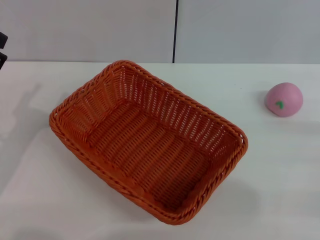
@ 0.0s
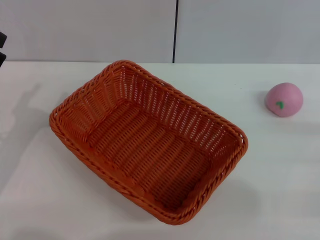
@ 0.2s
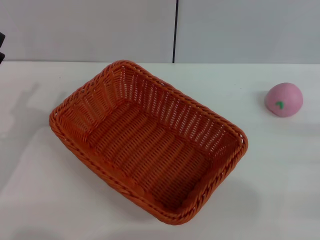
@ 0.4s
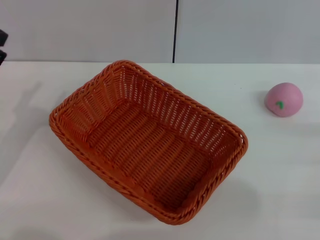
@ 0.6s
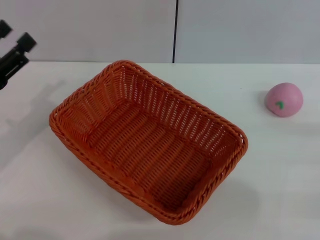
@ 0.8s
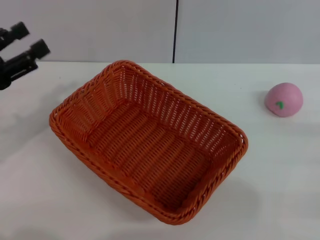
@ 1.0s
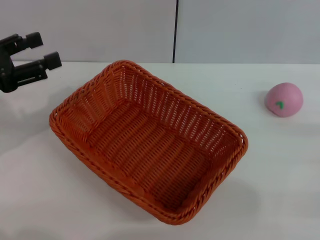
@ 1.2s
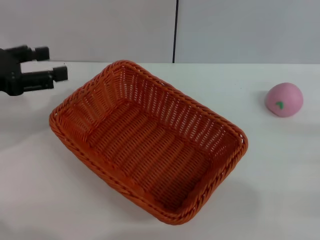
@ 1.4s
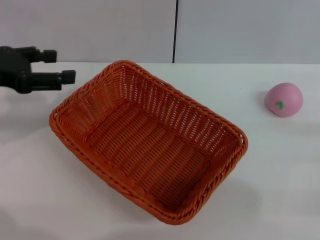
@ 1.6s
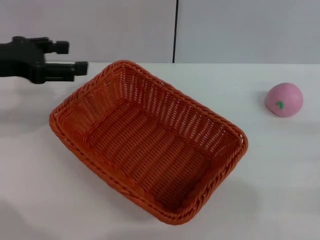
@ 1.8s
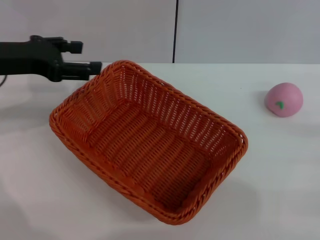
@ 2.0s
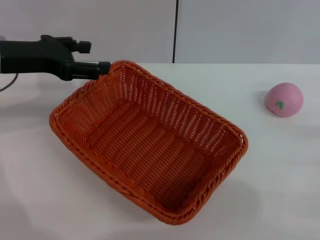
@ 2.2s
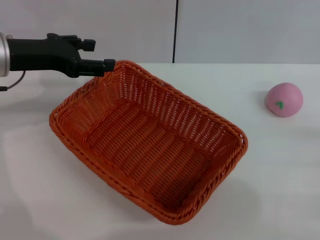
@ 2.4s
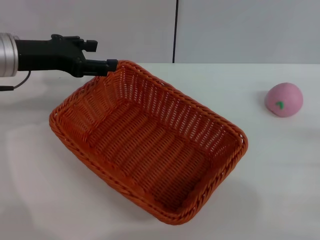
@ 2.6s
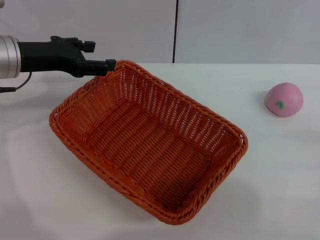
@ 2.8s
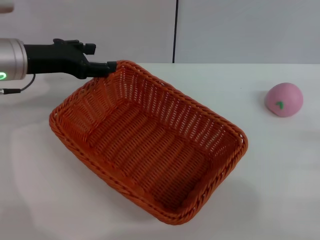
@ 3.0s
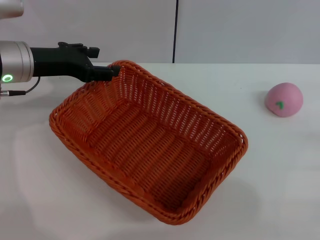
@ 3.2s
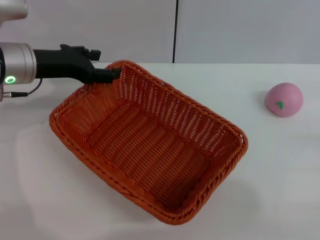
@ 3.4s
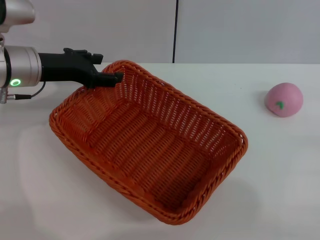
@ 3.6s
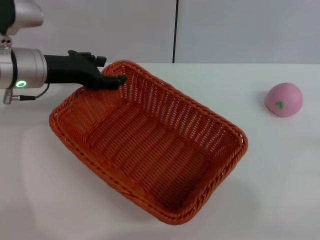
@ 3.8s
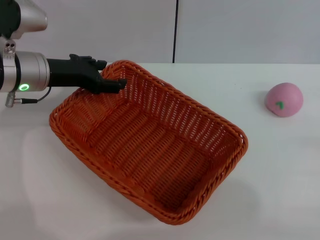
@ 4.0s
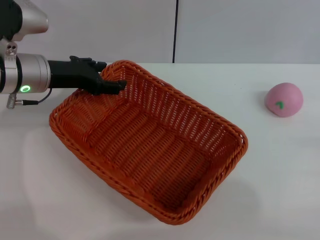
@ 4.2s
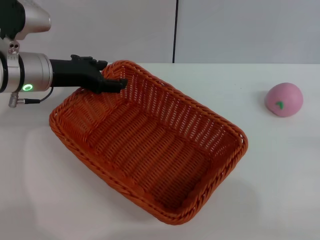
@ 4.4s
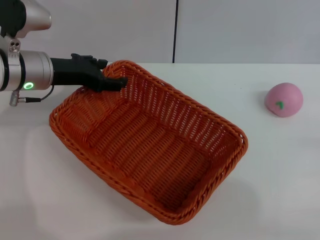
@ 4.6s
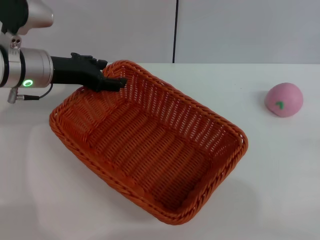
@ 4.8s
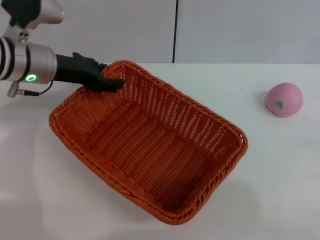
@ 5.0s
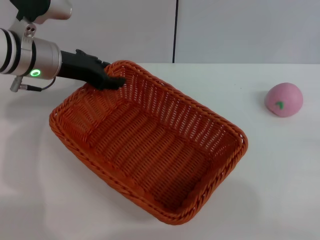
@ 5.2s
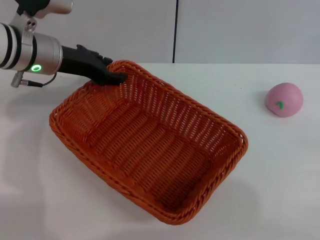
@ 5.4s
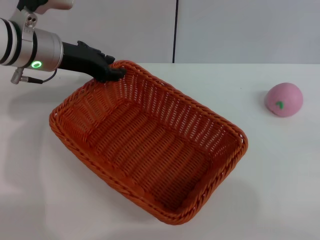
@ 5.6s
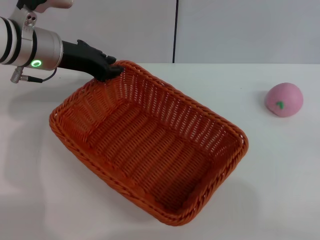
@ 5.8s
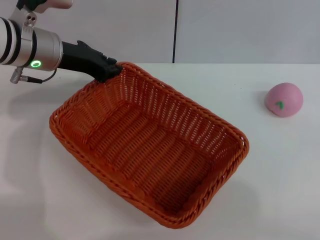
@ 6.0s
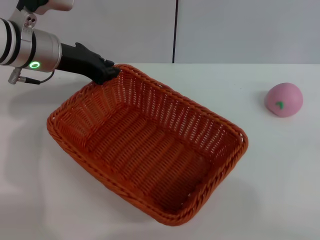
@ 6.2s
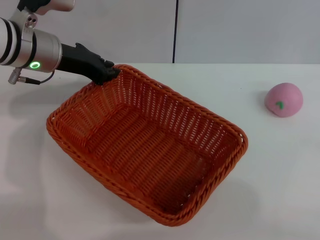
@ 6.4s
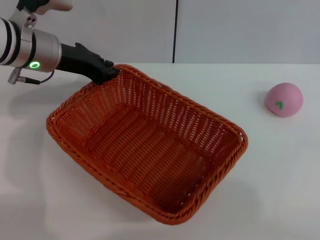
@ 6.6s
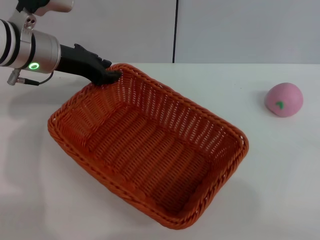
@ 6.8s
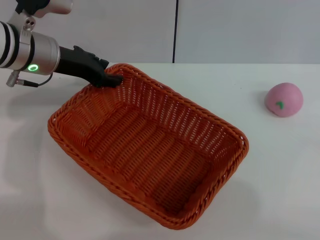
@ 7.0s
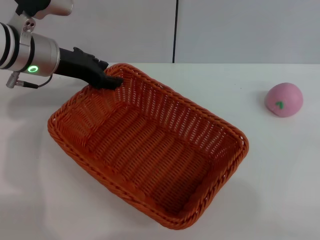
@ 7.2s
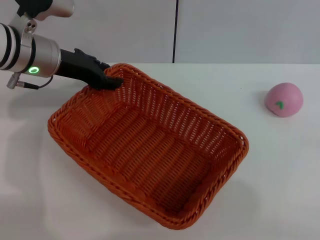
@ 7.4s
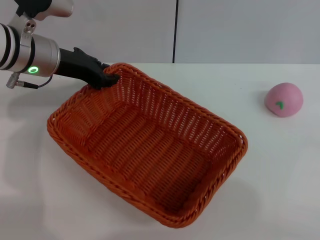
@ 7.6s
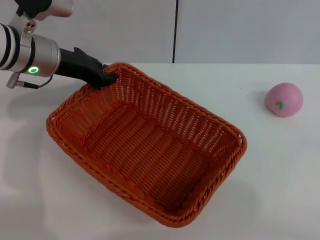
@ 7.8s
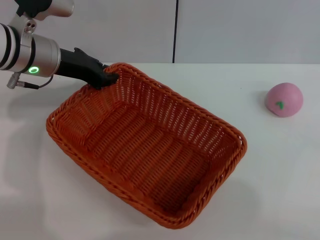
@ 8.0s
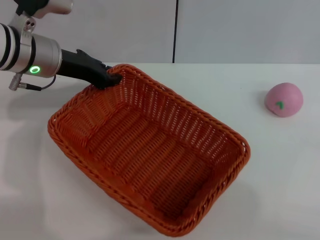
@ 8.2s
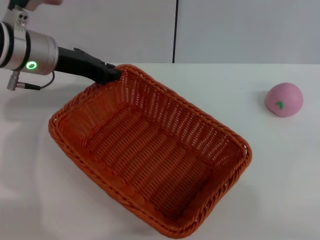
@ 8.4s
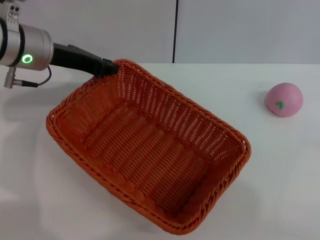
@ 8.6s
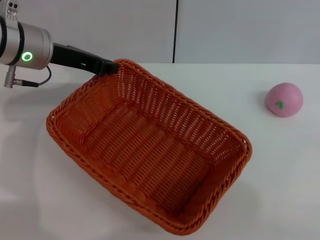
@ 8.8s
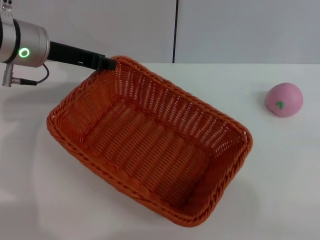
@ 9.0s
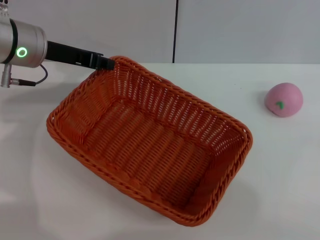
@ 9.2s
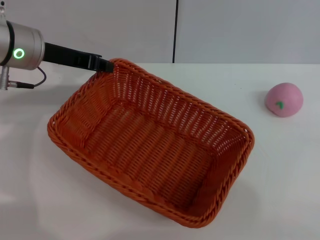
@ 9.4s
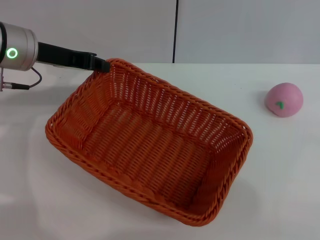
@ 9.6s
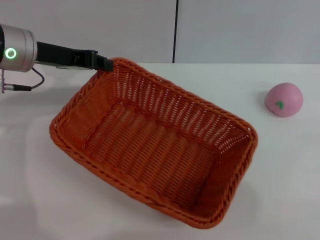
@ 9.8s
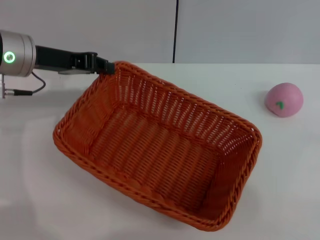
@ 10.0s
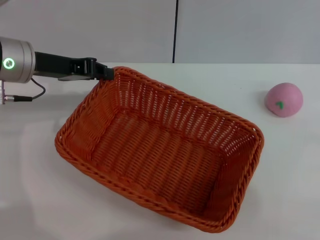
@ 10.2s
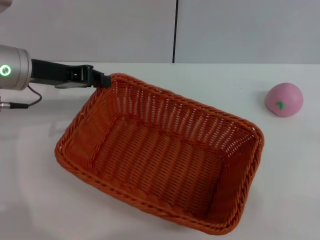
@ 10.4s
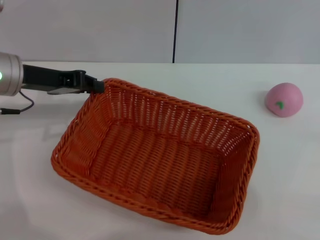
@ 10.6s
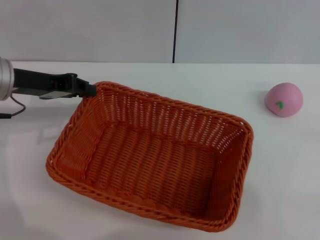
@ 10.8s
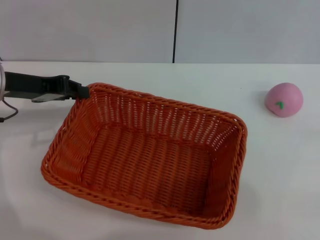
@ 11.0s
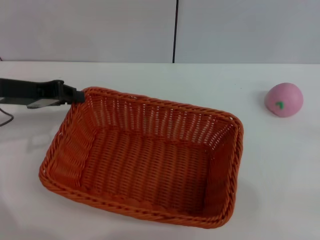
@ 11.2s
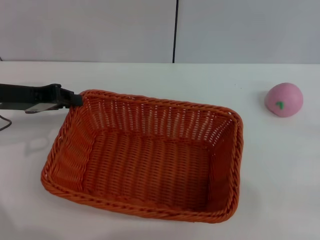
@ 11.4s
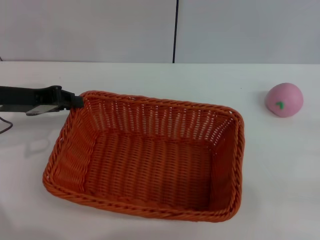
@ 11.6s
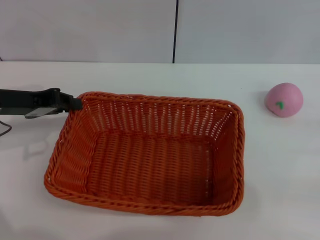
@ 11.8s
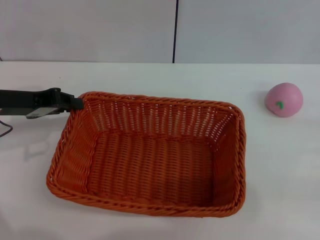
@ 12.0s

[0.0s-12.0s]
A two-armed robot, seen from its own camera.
Step, 0.0s to 8.8s: Pick up the light basket with the left gripper.
0.0s to 1.6s: The left gripper is displaced upward and forward by roughly 15 cm.
1.6s to 3.0s: The left gripper is displaced forward and to the right by roughly 10 cm.
3.0s to 4.4s: The grippers make only small movements.
4.4s to 6.0s: The left gripper closes up.
6.0s to 7.6s: Both grippers stay about where they are.
7.6s to 9.0s: The left gripper closes up.
10.4s to 12.0s: The left gripper changes place by about 5 cm.

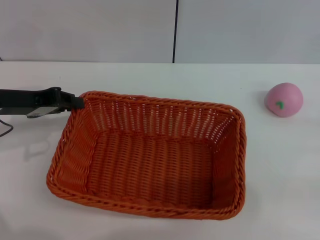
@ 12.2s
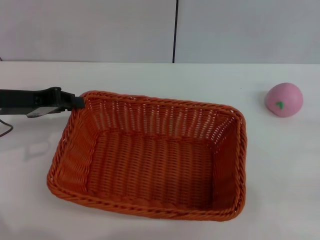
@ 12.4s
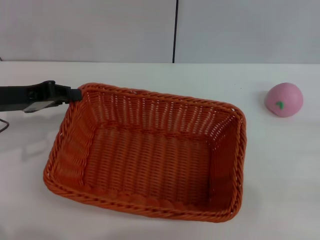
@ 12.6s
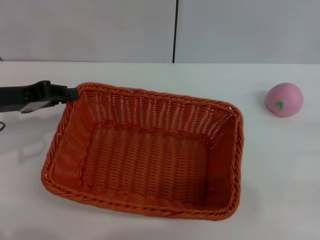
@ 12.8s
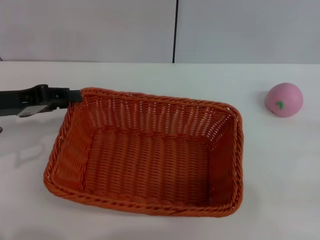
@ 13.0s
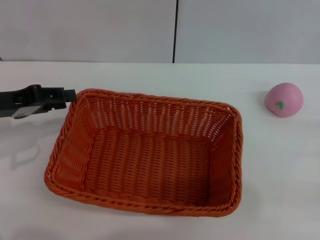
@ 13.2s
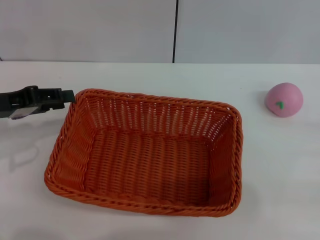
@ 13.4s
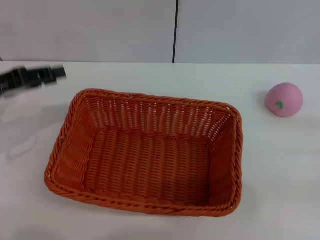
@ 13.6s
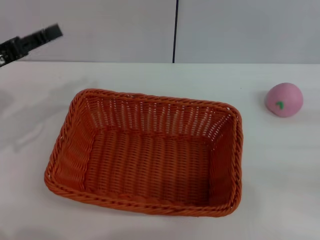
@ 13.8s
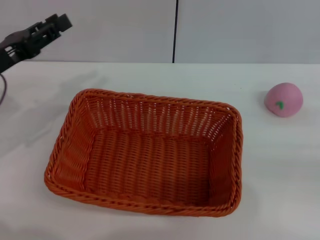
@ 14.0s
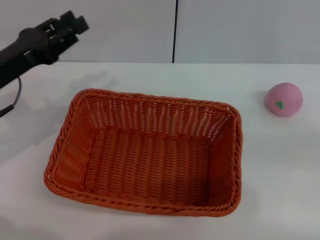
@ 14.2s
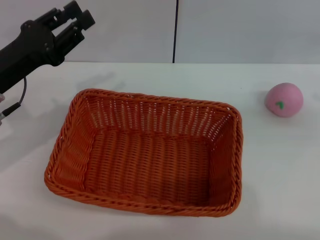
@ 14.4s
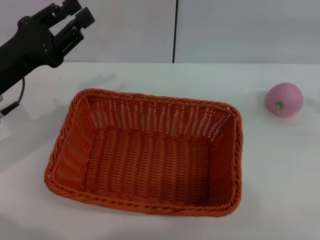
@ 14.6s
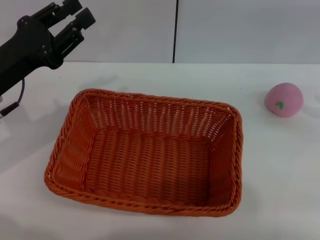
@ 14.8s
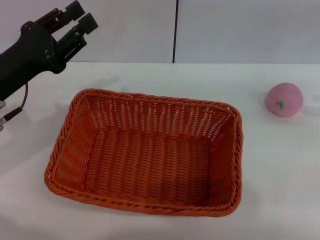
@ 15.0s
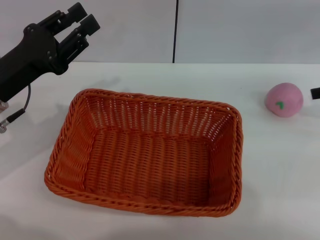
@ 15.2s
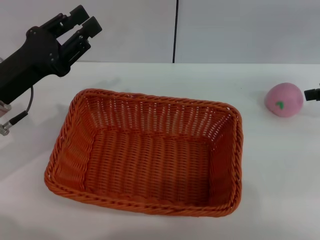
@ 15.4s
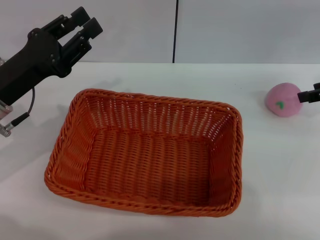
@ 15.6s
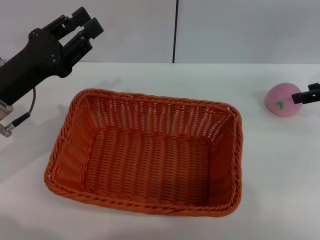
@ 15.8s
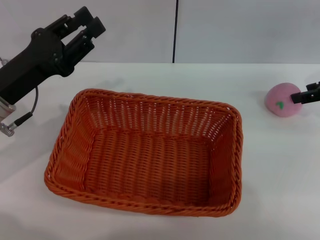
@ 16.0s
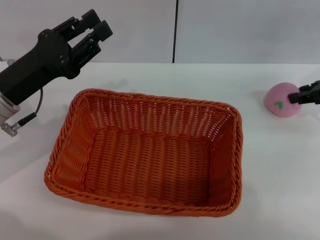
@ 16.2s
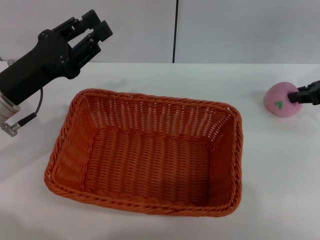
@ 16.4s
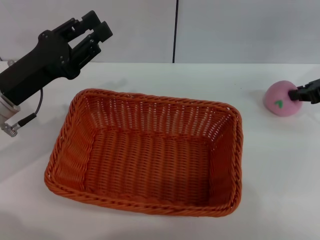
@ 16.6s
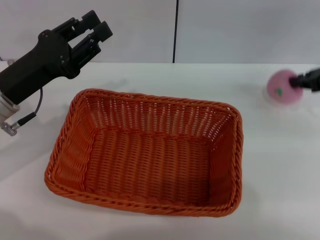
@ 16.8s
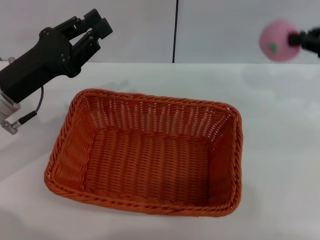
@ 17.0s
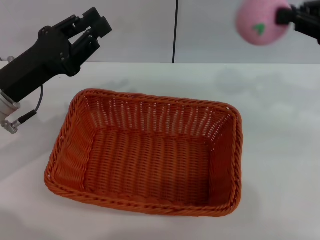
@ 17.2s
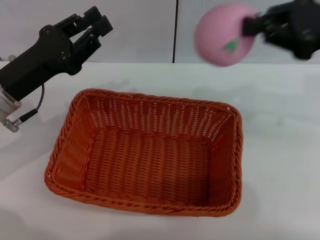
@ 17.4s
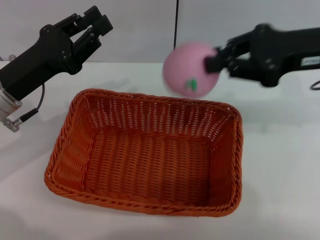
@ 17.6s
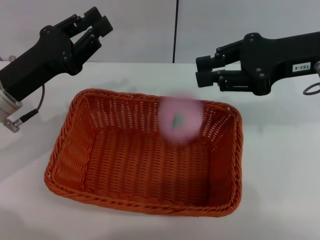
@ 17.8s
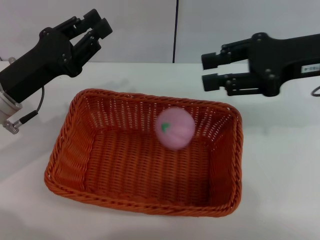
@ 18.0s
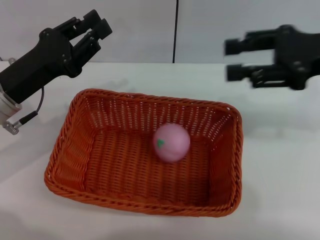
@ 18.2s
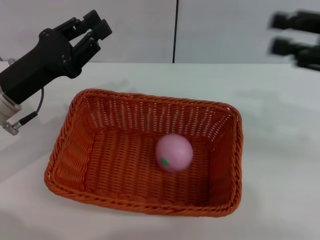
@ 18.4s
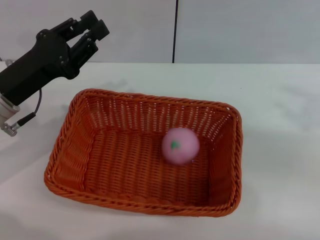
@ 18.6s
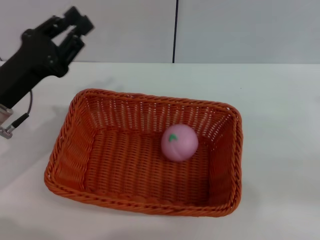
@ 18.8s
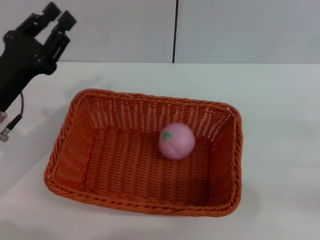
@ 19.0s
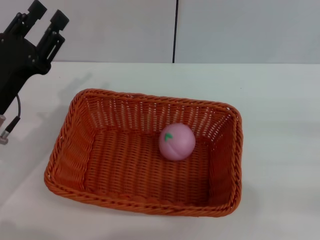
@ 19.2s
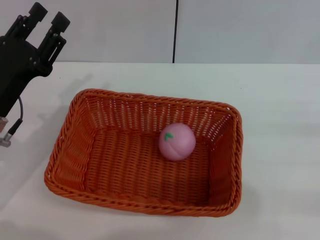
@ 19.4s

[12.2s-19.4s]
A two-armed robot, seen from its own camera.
Step, 13.8s to 16.8s: Pick up the peach with the left gripper.
12.2s to 13.6s: The left gripper opens.
13.6s to 15.0s: The left gripper shifts roughly 5 cm to the right.
15.0s to 16.6s: The right gripper is displaced to the left by some 5 cm, and closes up.
16.6s to 18.0s: The right gripper shifts roughly 10 cm to the left and upward, and opens up.
18.0s to 19.4s: The right gripper heads to the right, backward and downward, covering approximately 25 cm.
